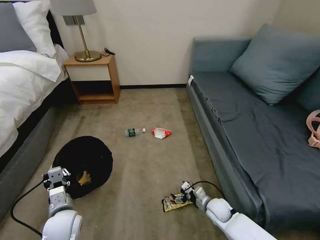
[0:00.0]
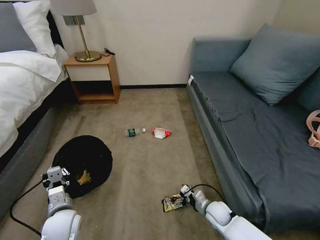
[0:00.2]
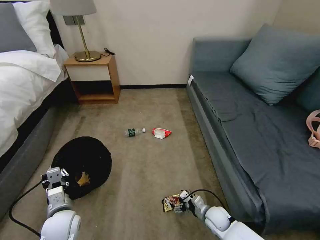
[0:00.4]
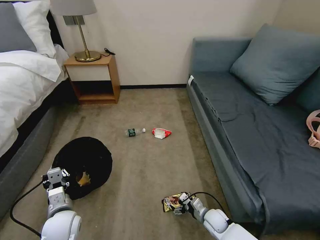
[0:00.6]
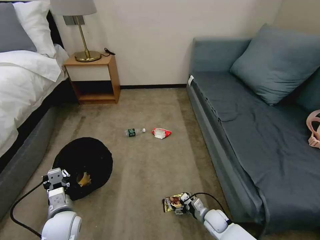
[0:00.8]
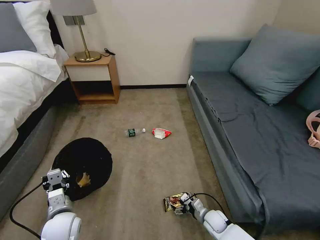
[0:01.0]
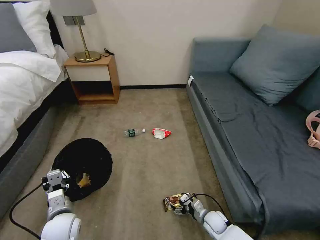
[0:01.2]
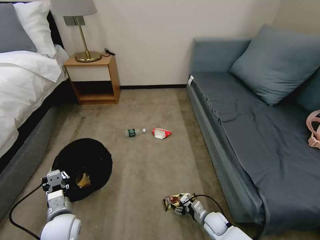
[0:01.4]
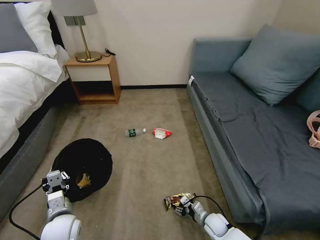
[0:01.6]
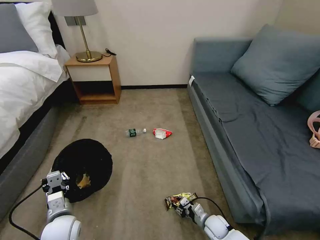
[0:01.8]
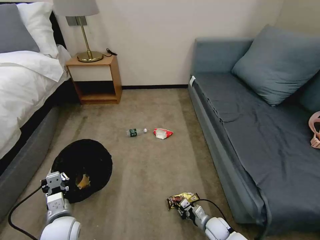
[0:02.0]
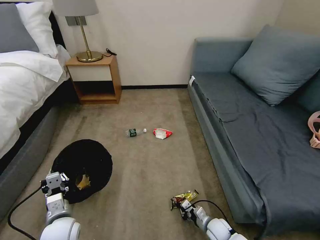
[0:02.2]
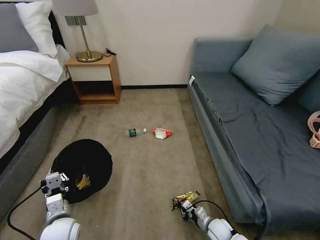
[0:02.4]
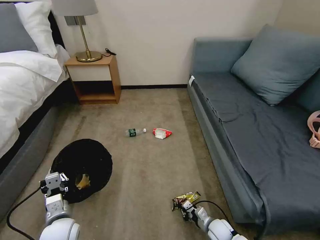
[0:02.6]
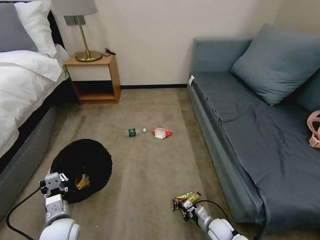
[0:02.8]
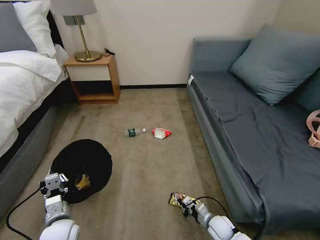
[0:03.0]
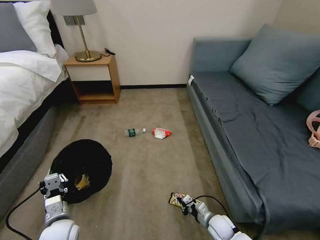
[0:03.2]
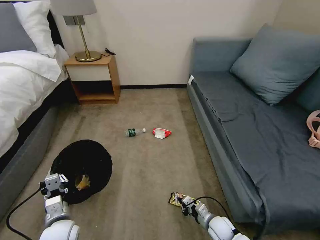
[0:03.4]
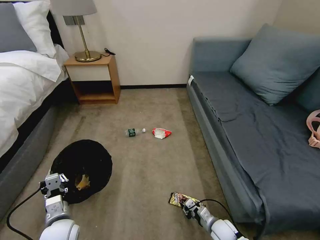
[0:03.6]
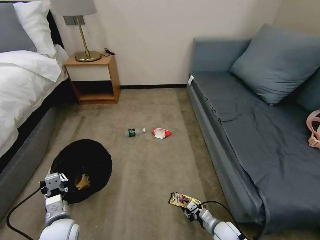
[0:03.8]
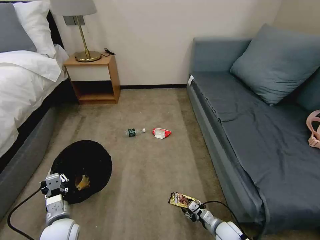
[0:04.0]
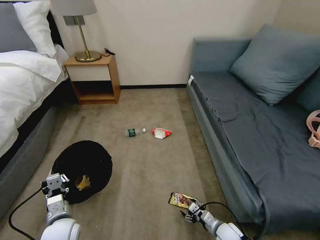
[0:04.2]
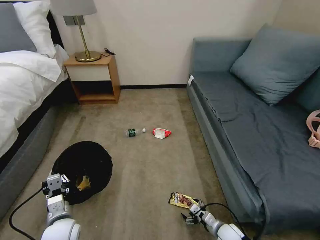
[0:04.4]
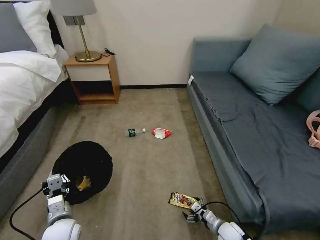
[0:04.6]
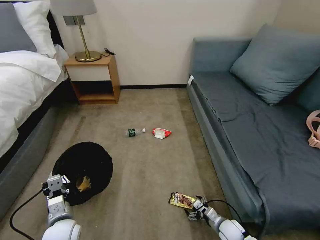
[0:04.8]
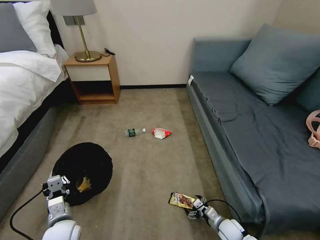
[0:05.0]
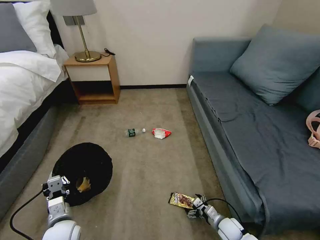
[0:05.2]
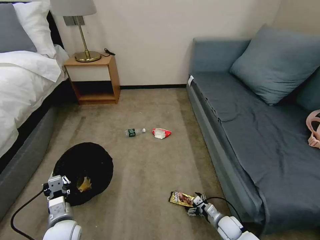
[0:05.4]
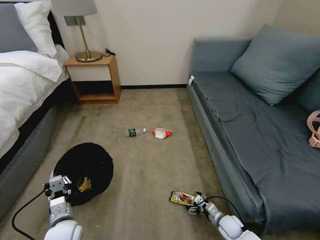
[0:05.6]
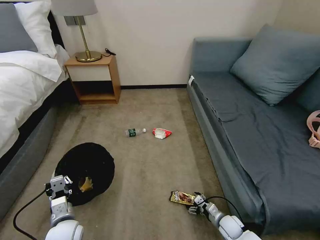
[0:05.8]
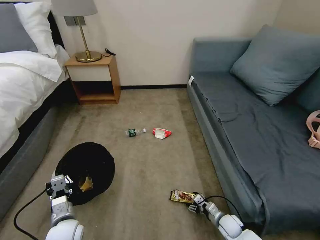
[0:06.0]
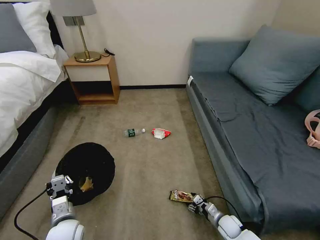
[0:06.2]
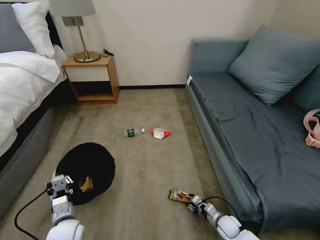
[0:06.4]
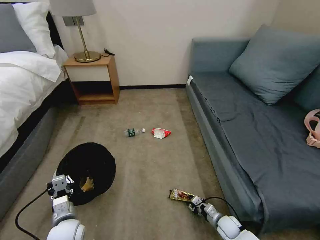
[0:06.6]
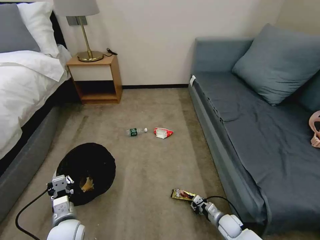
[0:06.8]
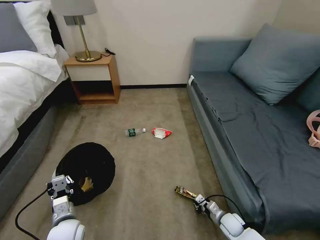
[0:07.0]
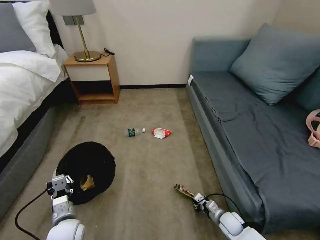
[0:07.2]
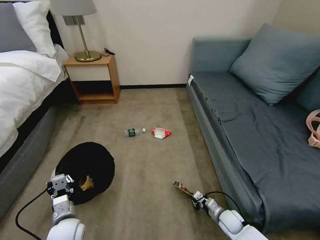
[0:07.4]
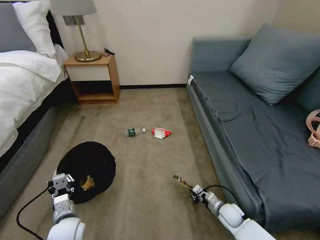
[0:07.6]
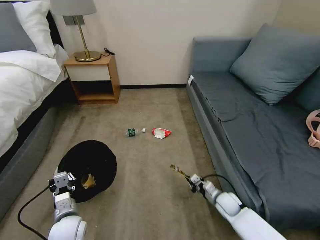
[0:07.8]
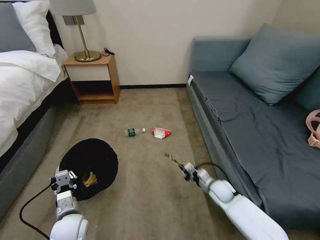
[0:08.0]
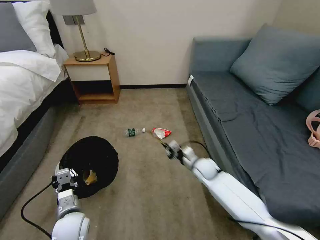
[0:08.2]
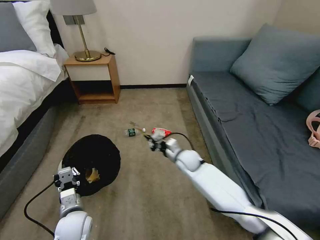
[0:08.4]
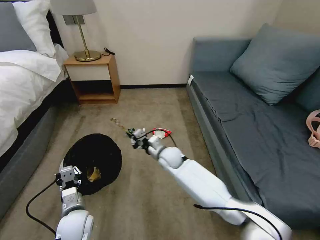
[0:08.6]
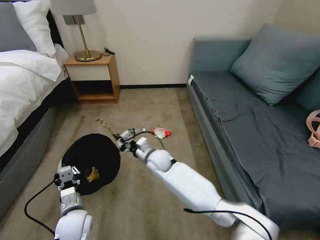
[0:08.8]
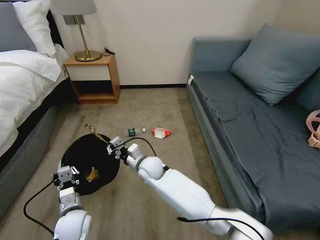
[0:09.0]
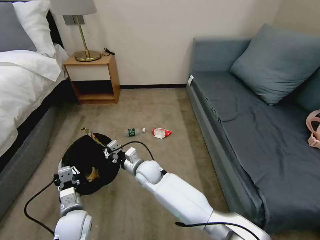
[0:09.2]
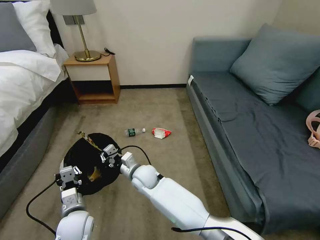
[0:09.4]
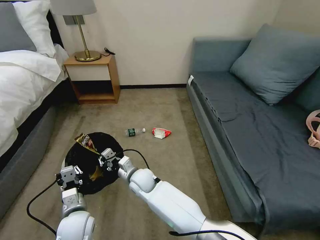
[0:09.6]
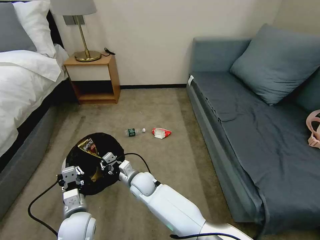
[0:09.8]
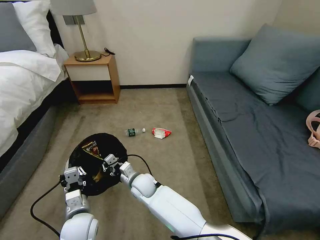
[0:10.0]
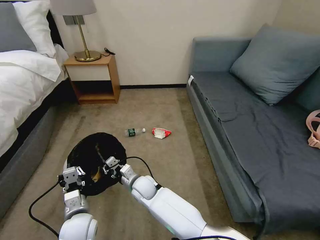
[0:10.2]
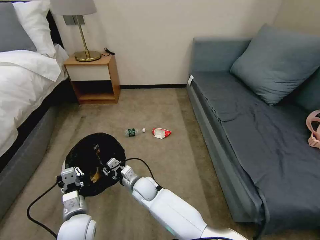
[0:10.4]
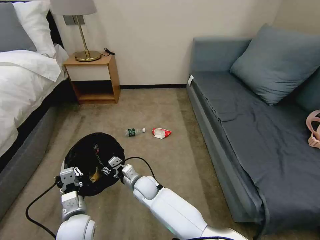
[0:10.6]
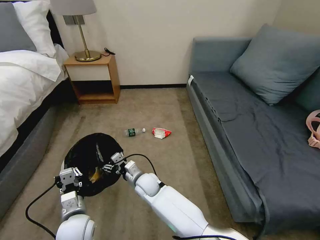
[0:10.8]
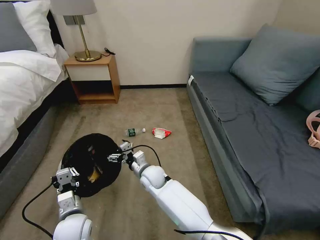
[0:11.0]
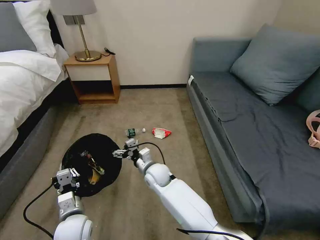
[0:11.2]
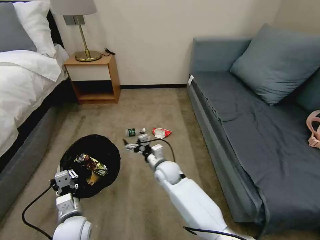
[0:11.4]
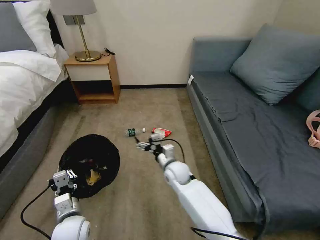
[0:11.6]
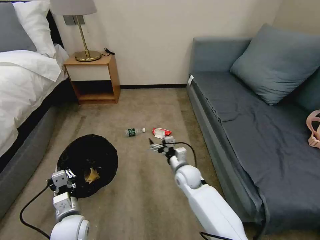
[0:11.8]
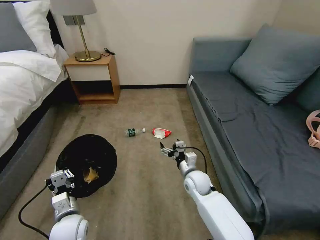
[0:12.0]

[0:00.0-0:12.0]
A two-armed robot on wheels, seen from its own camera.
Task of the whole recording: Pick up the trash bin, then pick up the garbage on the floor and place it into the trash bin.
0:00.0 to 0:01.6: The right gripper travels downward by approximately 5 cm, and closes its fingers.
0:01.6 to 0:03.0: The right gripper closes up.
0:03.0 to 0:04.4: The right gripper opens.
0:04.4 to 0:06.0: The right gripper shifts by some 5 cm.
0:06.0 to 0:07.6: The right gripper moves roughly 5 cm, and closes up.
0:07.6 to 0:09.0: The right gripper is displaced to the left and upward by approximately 40 cm.
0:09.0 to 0:10.4: The right gripper shifts about 10 cm downward and backward.
0:10.4 to 0:12.0: The right gripper shifts roughly 20 cm to the right, and opens up.

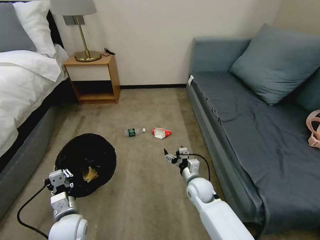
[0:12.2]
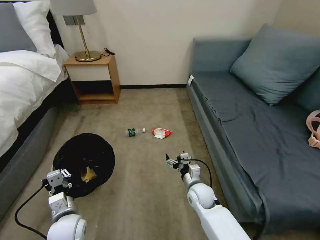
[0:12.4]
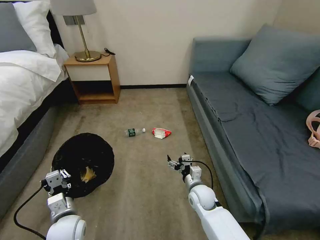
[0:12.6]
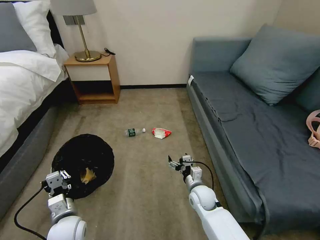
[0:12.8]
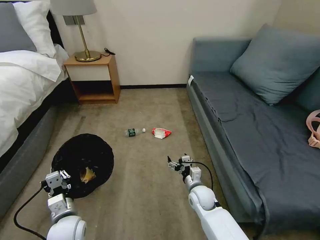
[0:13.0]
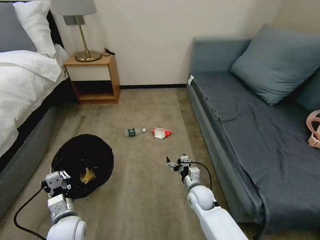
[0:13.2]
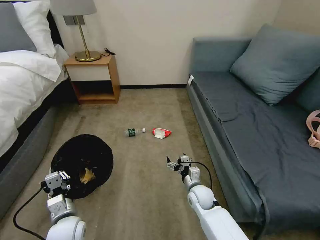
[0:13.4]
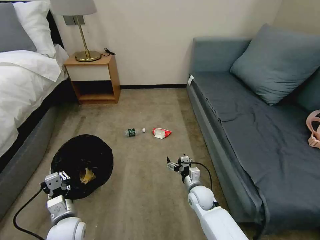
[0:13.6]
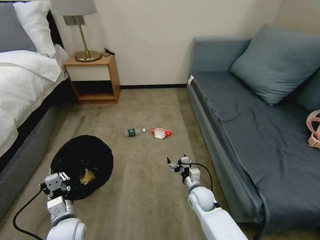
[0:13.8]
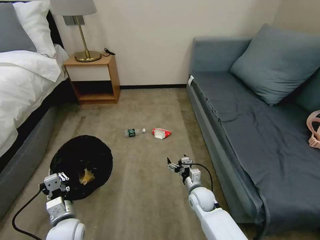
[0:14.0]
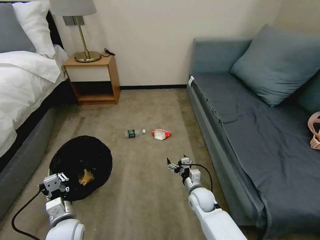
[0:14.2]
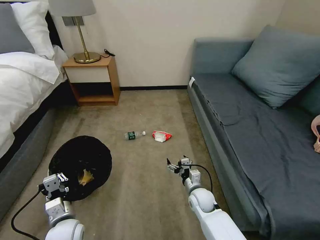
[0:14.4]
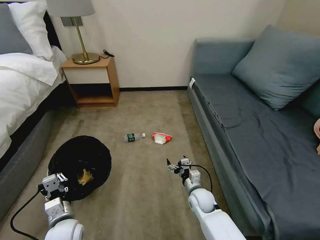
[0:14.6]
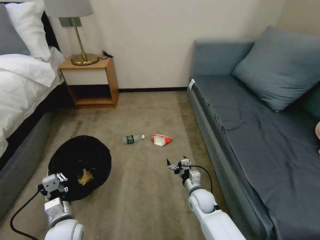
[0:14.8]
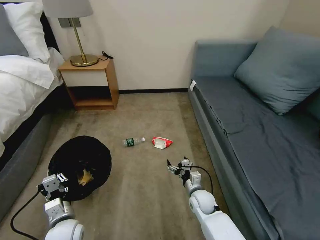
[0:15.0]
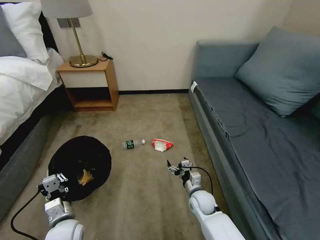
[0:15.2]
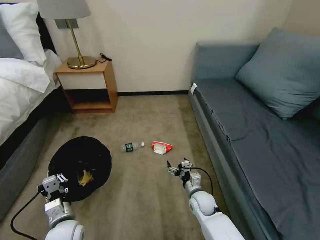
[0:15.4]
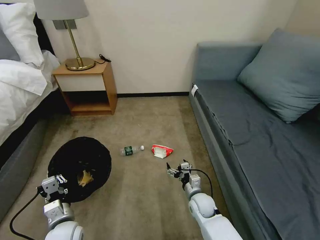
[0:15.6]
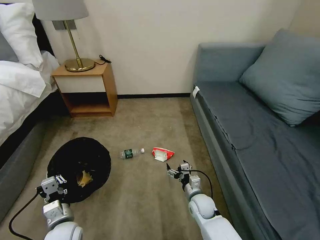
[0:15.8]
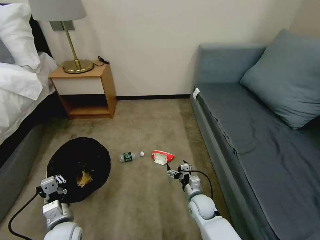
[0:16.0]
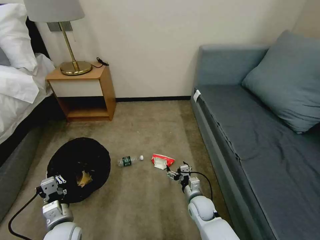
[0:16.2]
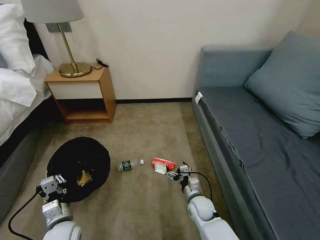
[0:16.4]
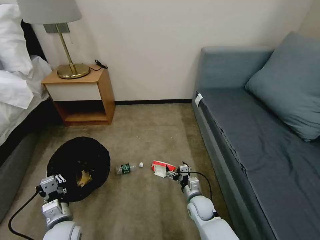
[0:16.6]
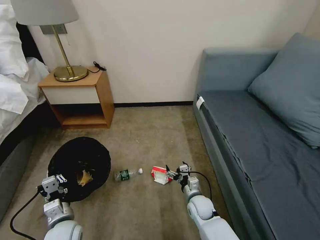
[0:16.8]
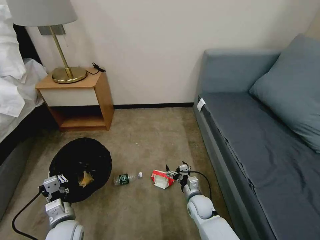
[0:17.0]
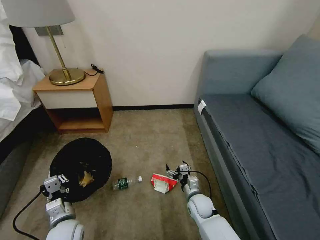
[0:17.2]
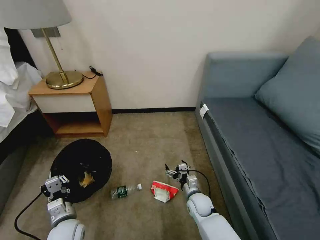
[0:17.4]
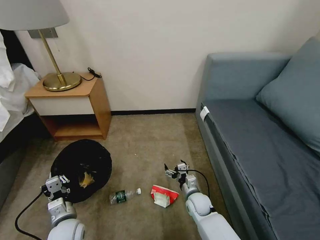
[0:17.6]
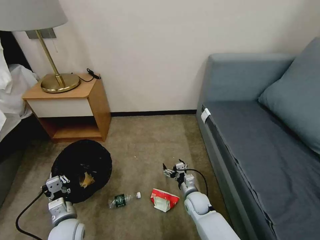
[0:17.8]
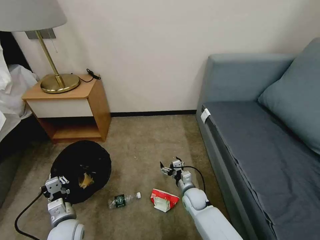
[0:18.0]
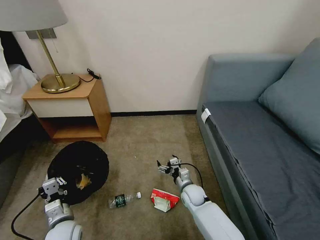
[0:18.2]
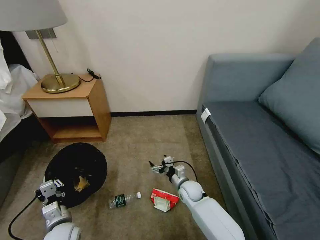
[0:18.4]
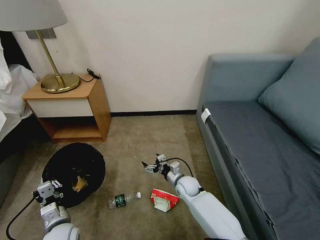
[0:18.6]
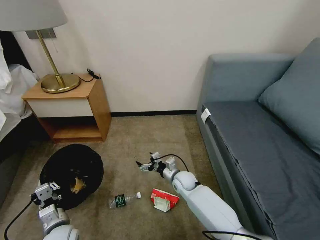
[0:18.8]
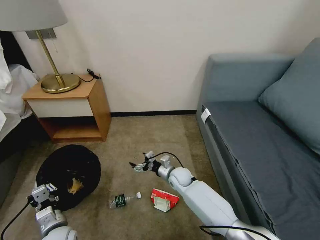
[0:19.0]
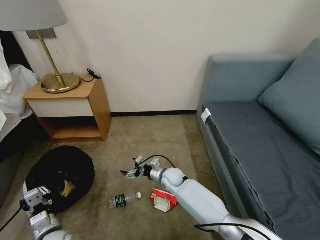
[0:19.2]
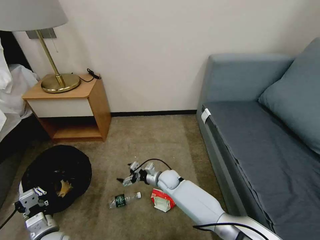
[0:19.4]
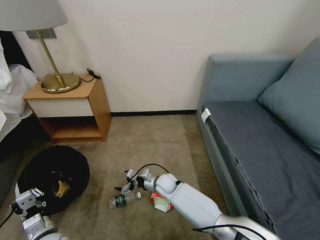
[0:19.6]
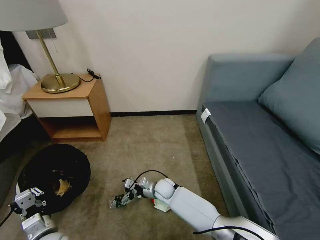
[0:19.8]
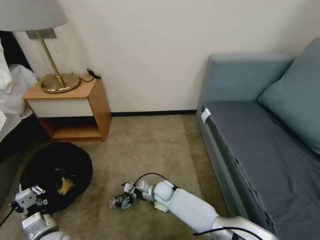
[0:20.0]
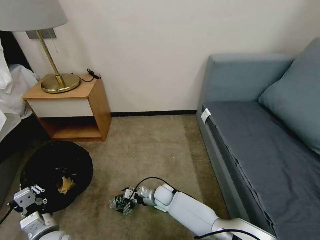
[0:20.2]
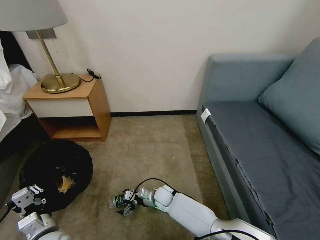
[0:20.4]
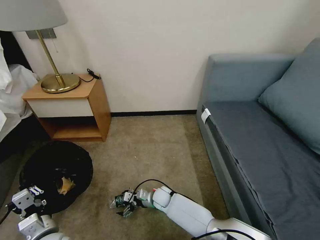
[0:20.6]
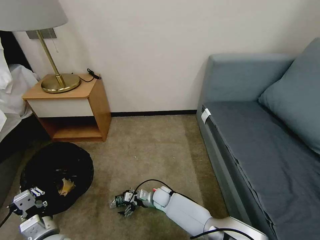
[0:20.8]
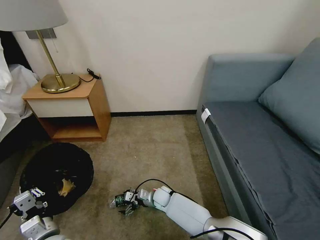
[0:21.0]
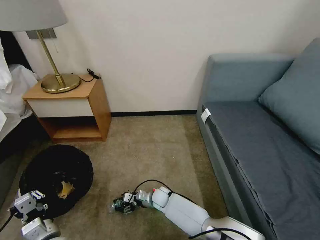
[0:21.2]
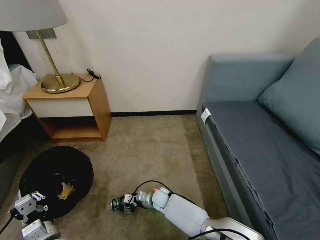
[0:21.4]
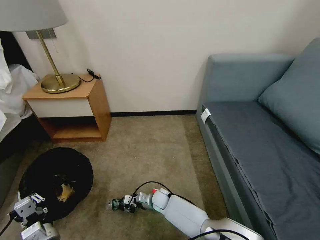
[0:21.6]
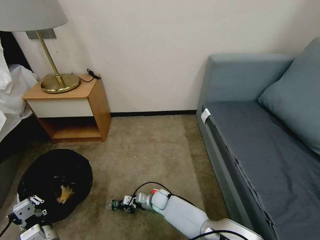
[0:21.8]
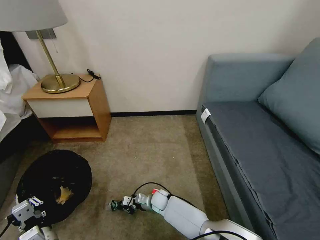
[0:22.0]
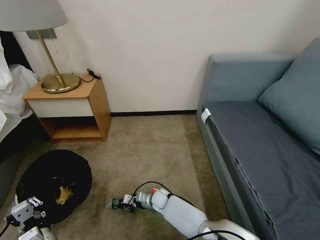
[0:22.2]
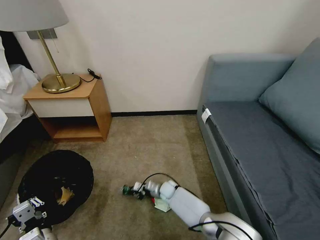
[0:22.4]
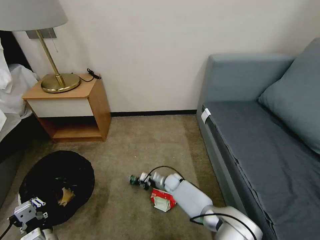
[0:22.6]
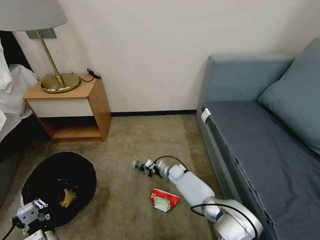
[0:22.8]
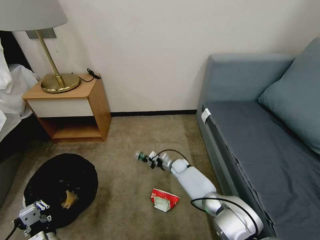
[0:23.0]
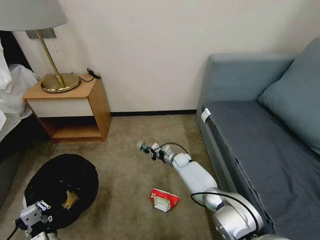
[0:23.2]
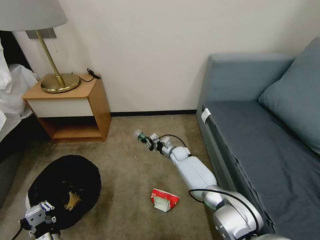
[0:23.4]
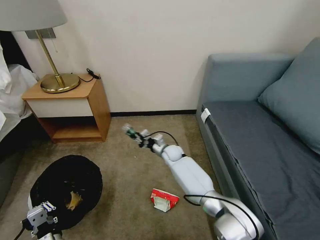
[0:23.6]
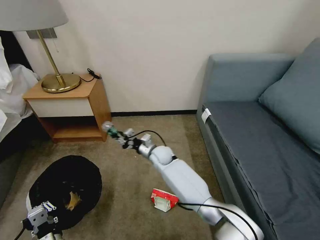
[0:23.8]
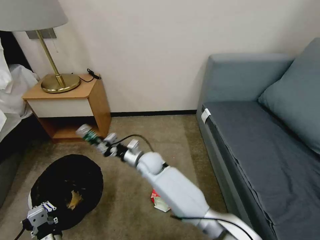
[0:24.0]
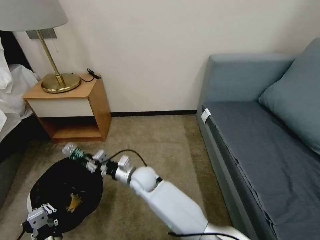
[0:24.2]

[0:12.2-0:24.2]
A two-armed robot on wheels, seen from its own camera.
Task of the whole recording: Pick up the trash bin, then pick up the garbage on the floor and place it into the trash bin.
0:12.2 to 0:13.8: The grippers make only small movements.
0:16.6 to 0:18.2: The right gripper moves roughly 5 cm.
0:18.2 to 0:19.8: The right gripper moves to the left, about 10 cm.
0:19.8 to 0:21.2: The right gripper goes roughly 5 cm downward.
0:21.2 to 0:22.6: The right gripper goes roughly 10 cm forward and to the right, and closes up.
0:22.6 to 0:24.2: The right gripper shifts some 25 cm upward, to the left and backward.
